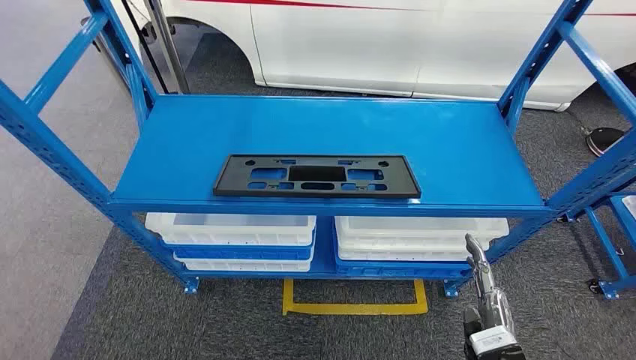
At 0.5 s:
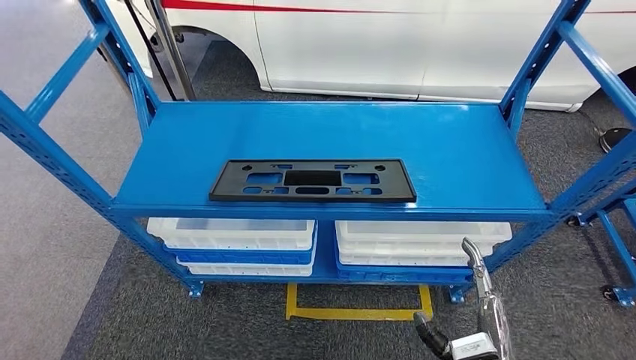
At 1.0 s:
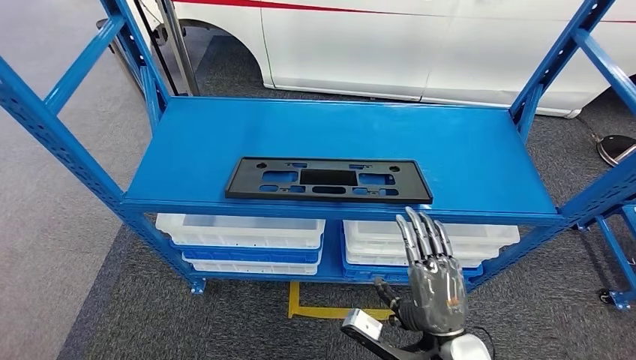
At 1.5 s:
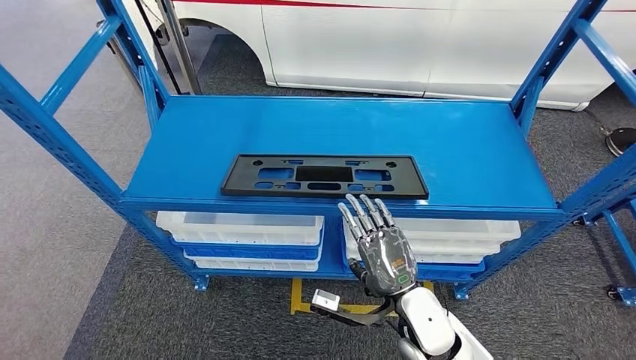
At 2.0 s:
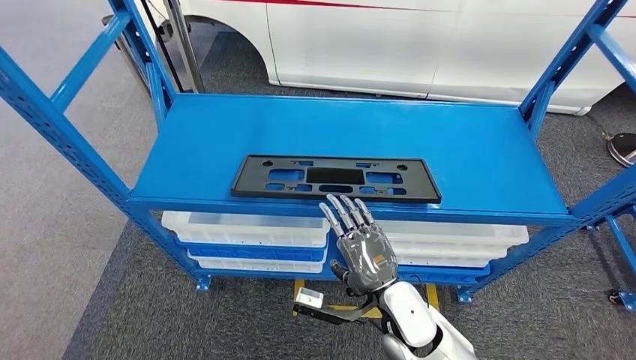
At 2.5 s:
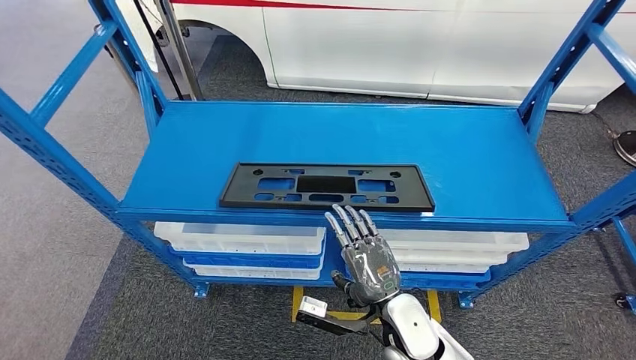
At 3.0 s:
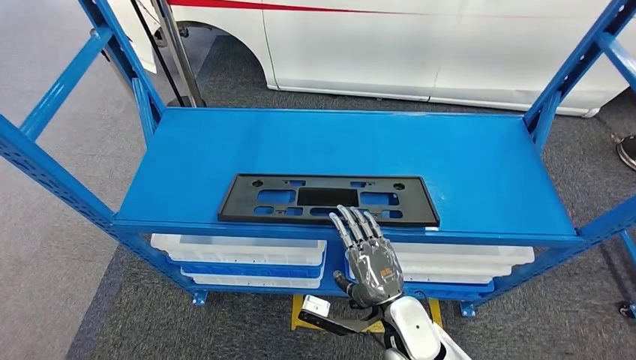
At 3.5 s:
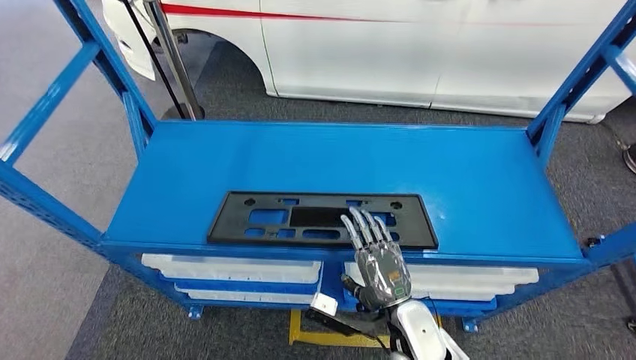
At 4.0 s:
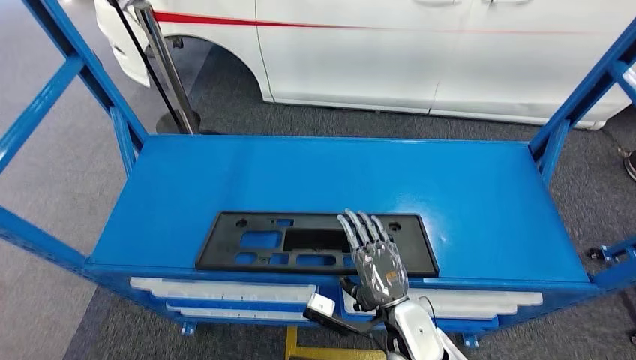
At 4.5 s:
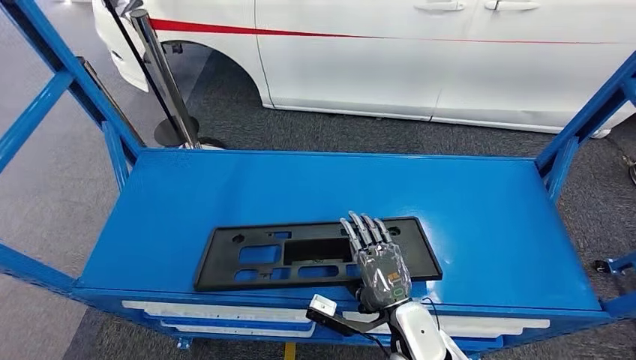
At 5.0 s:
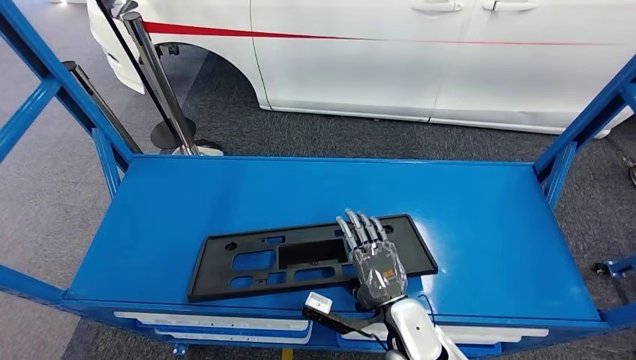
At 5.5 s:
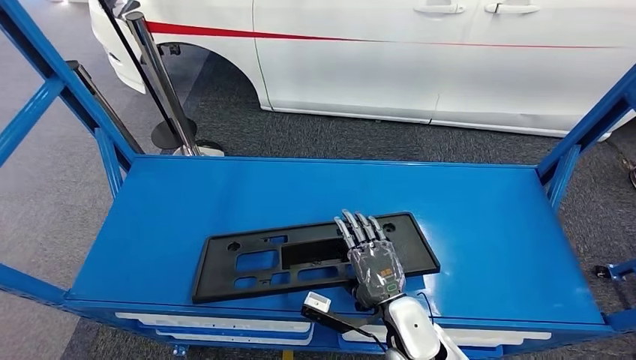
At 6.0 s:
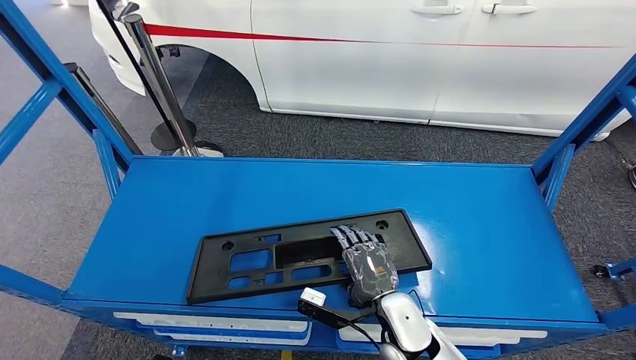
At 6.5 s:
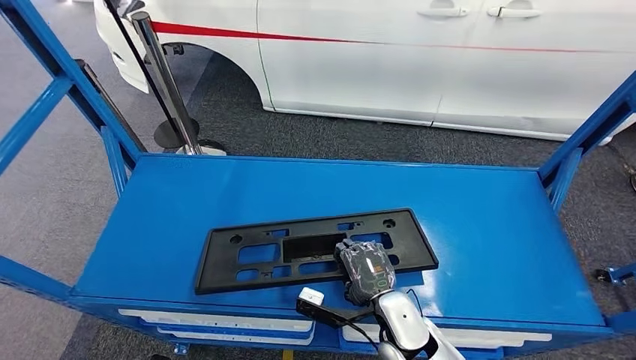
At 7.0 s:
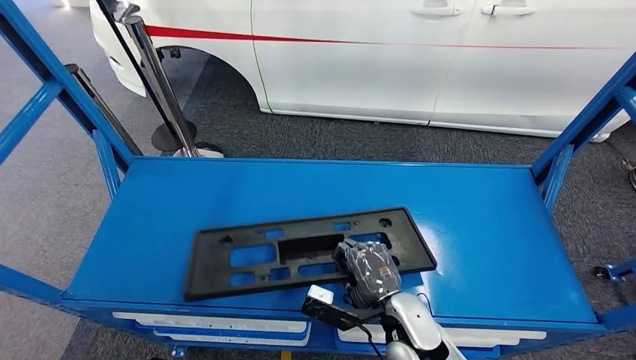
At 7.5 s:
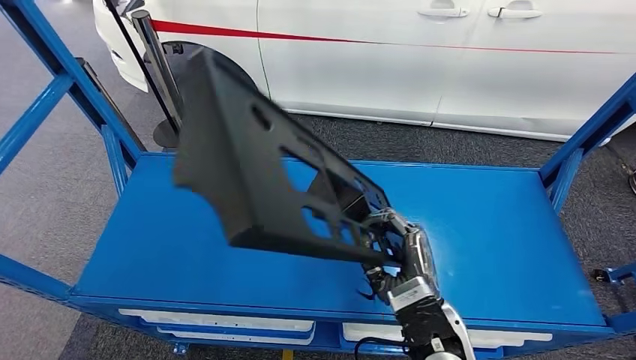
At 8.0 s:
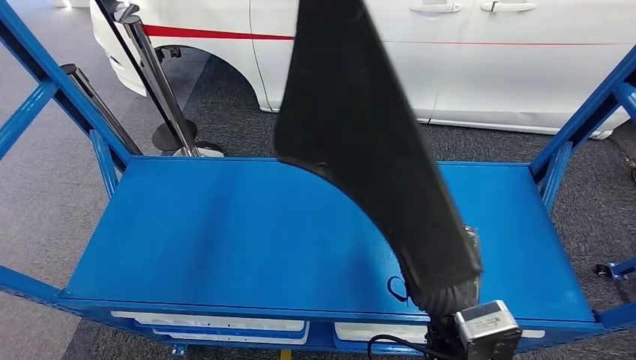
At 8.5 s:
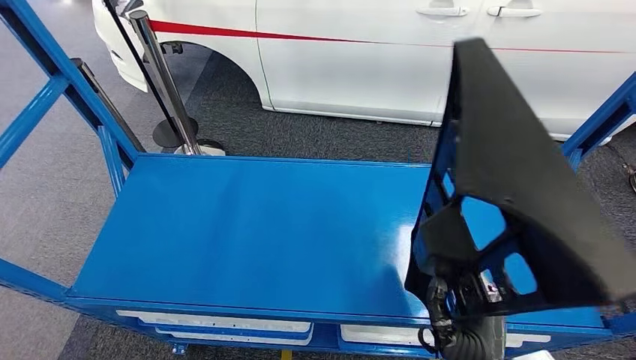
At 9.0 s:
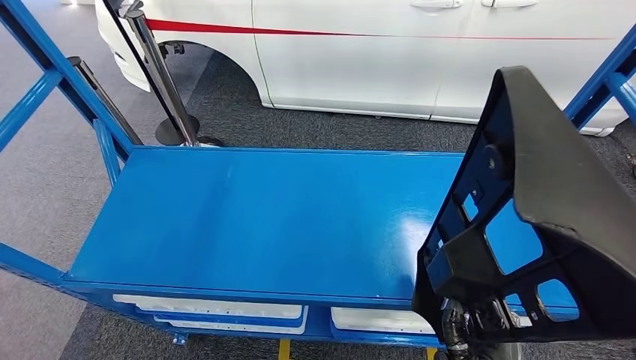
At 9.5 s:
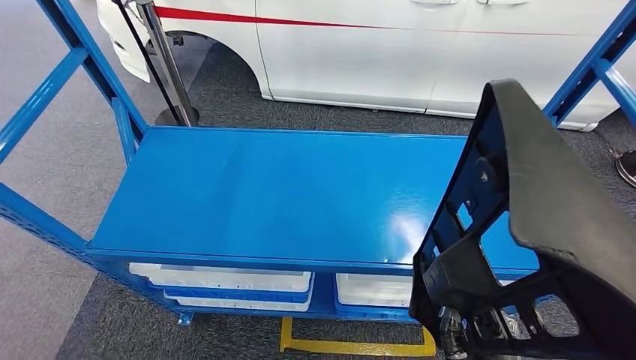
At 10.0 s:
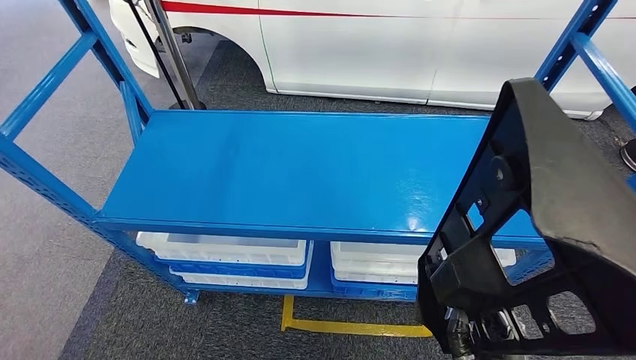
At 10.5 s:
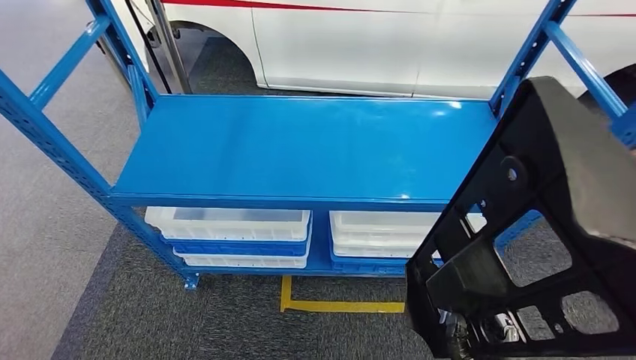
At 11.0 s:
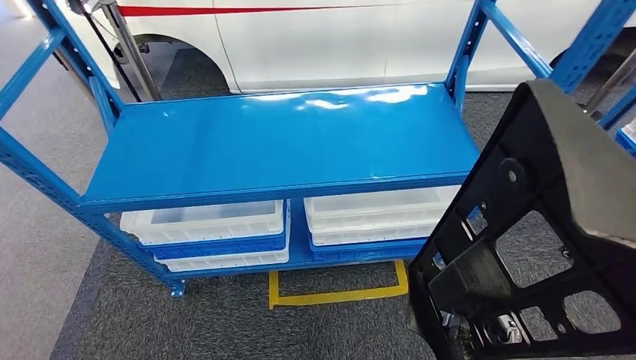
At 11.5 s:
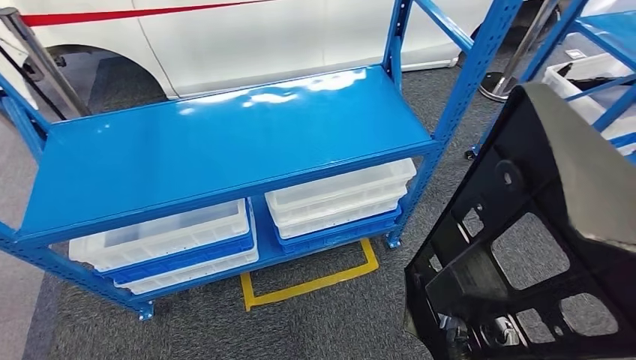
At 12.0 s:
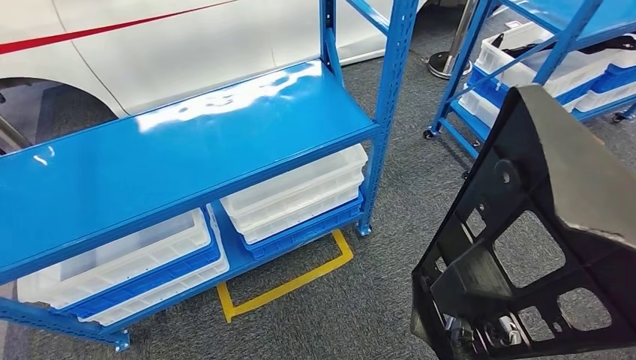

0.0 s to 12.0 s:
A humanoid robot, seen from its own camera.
Step, 0.0 to 8.5 s: Pick up the large parts from the shelf.

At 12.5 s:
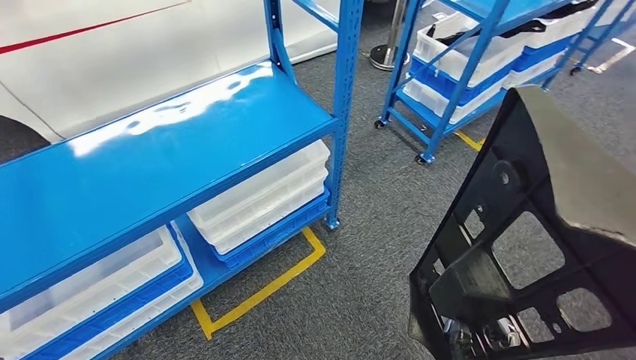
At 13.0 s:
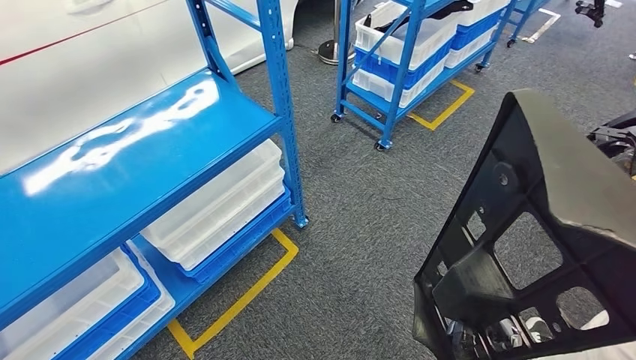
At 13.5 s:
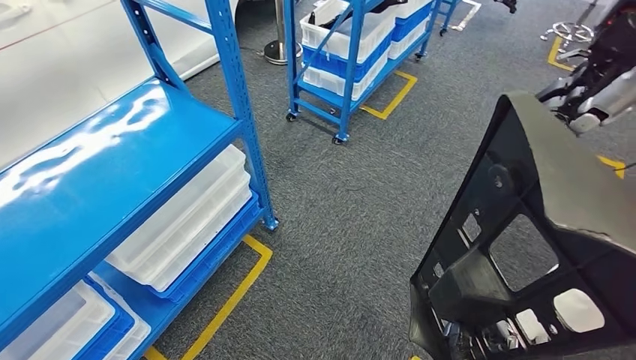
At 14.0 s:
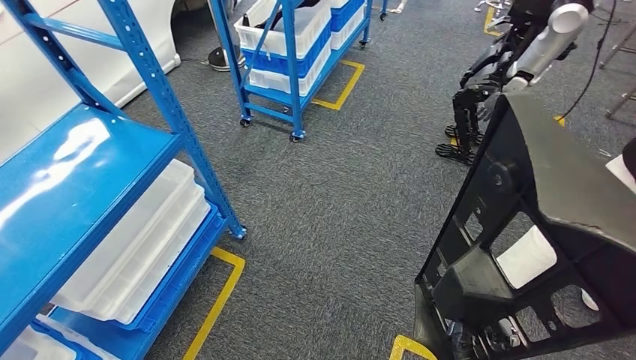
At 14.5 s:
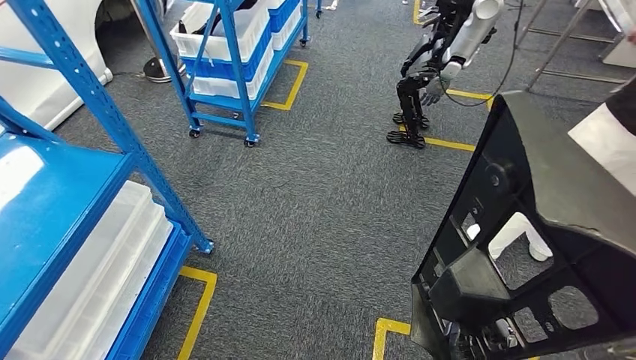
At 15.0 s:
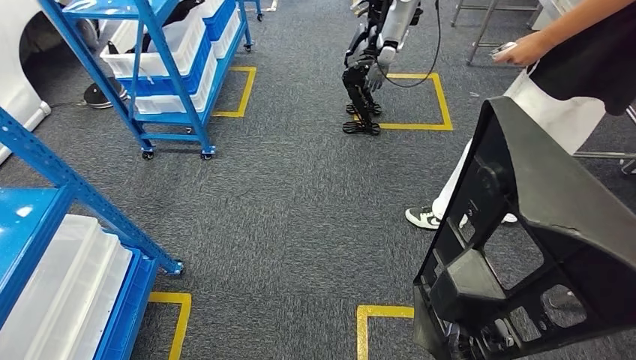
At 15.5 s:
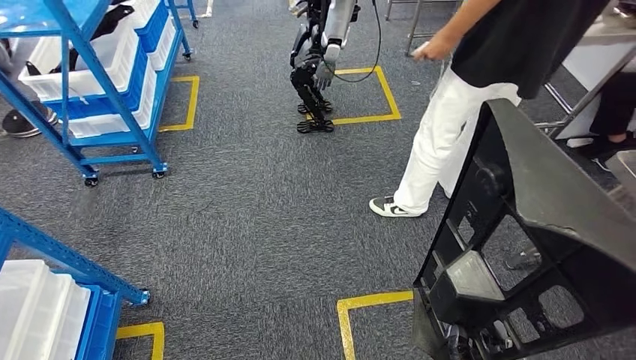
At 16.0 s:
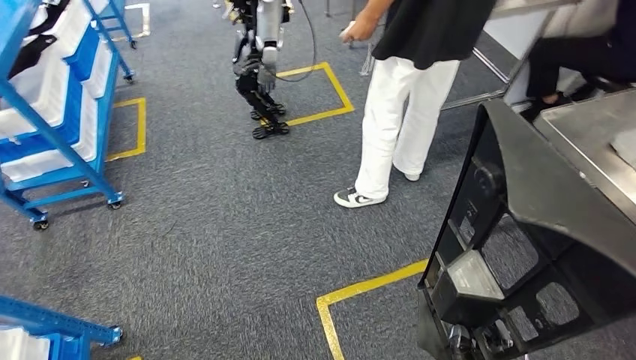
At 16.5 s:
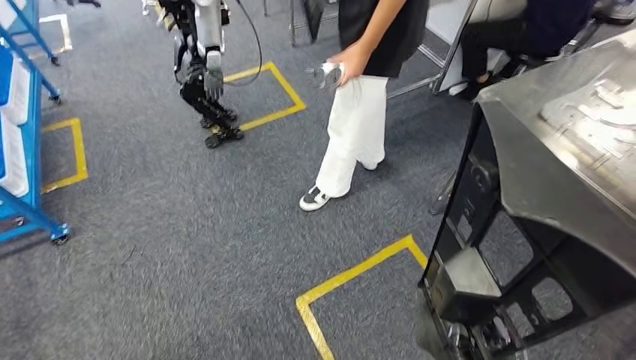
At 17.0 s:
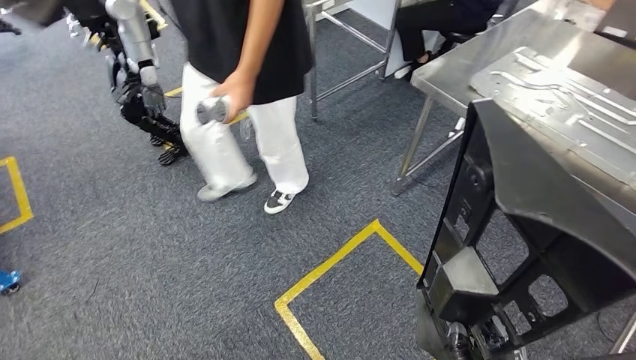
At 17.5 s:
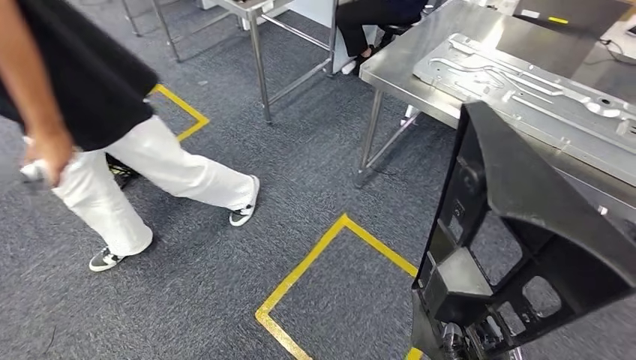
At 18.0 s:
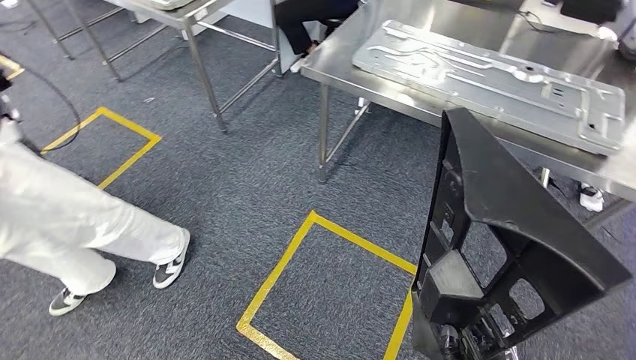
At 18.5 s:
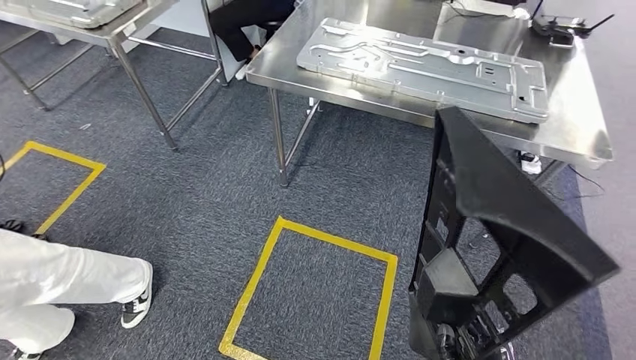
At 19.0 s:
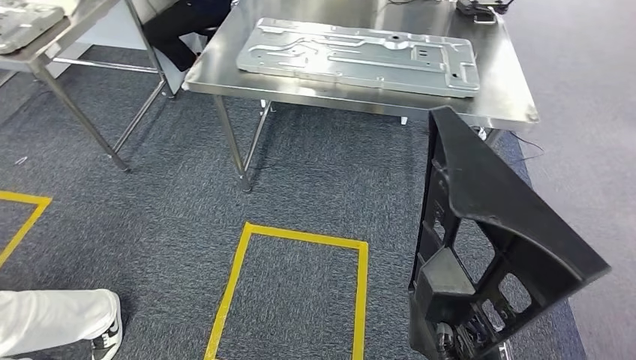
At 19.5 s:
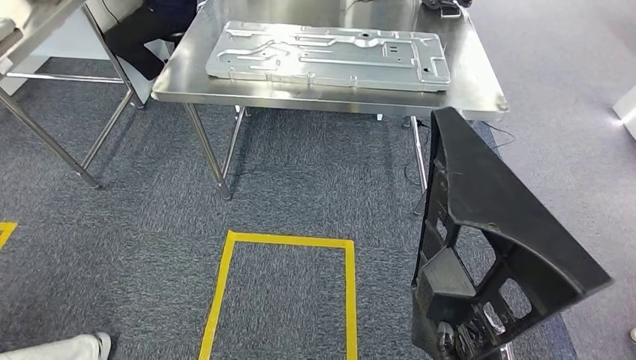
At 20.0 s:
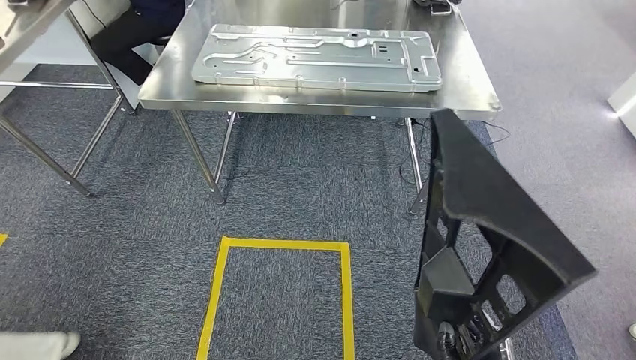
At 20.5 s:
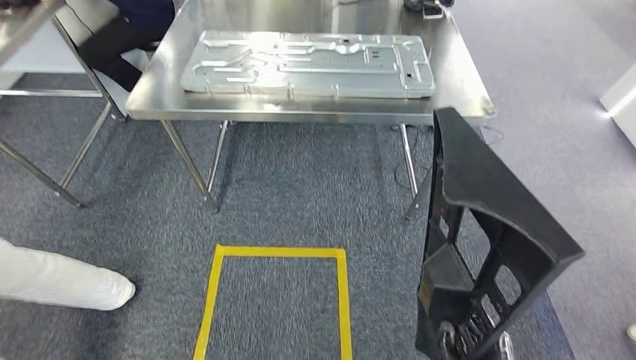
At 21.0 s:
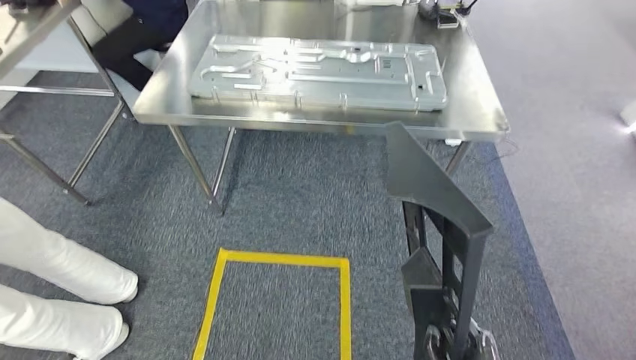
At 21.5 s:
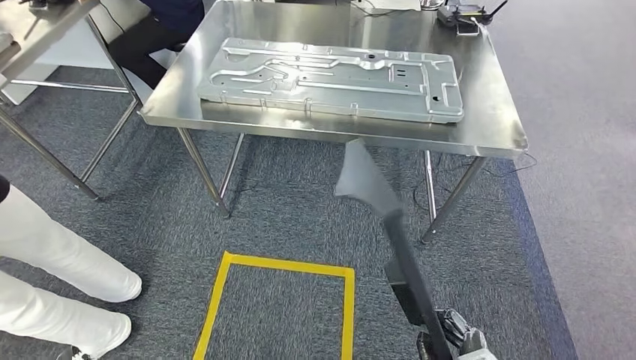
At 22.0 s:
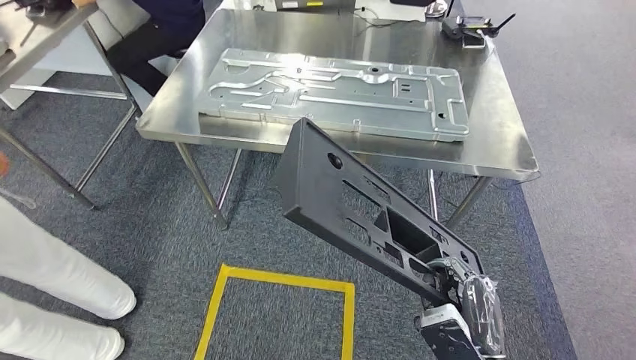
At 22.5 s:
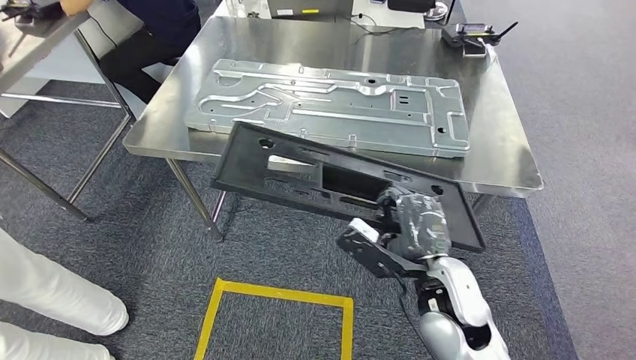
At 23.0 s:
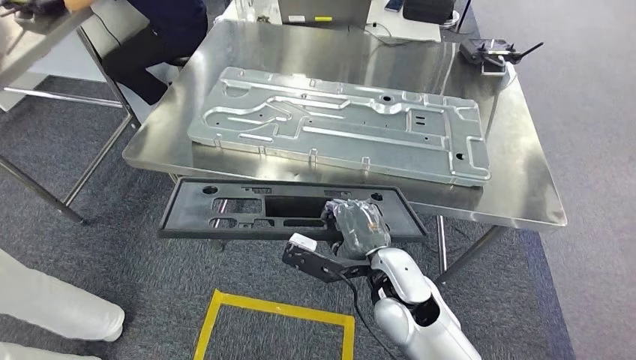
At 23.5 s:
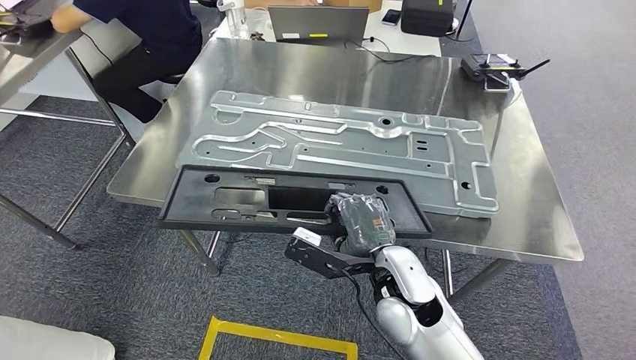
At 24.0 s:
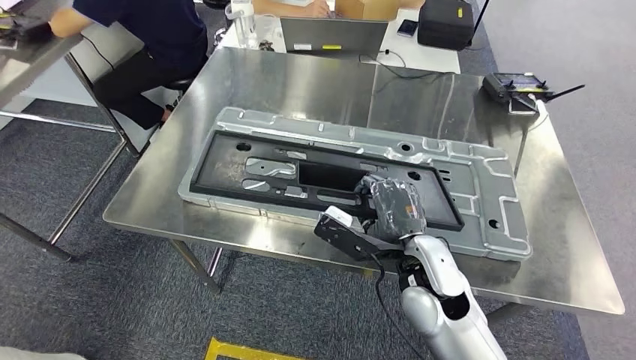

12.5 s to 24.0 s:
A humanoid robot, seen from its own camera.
Step, 12.5 to 23.0 s: Move the large parts to the workbench.
